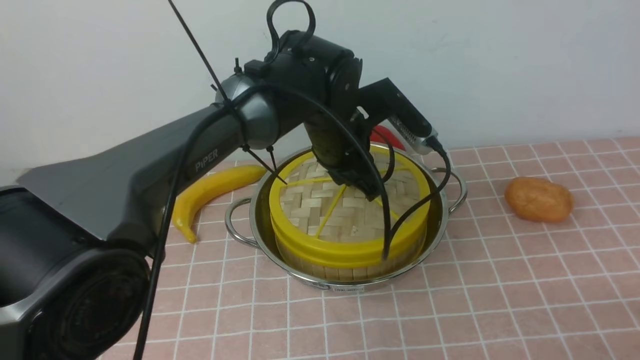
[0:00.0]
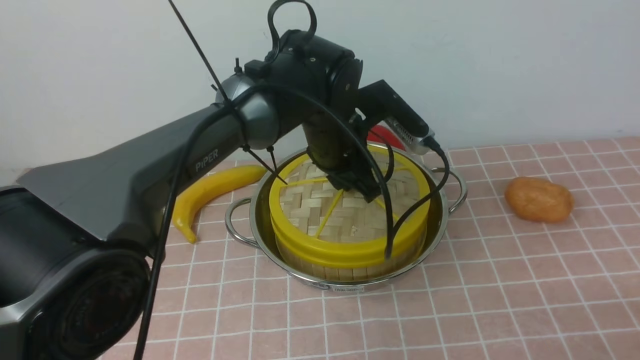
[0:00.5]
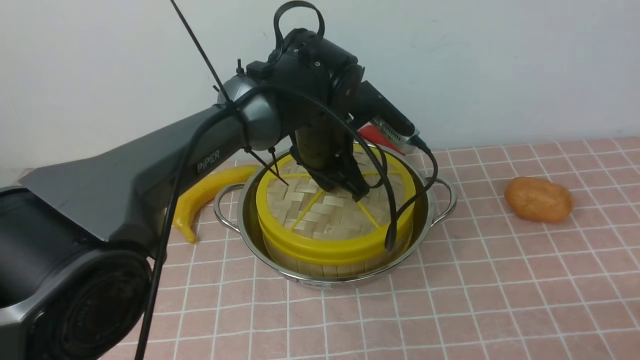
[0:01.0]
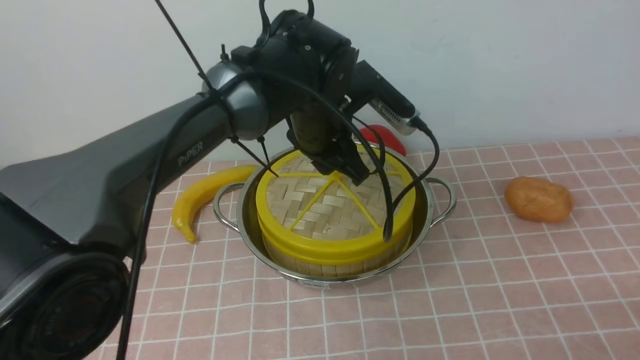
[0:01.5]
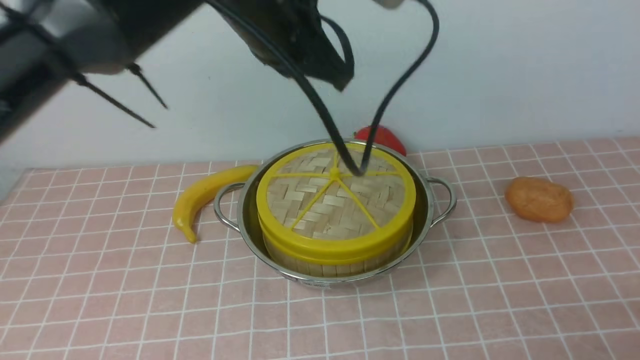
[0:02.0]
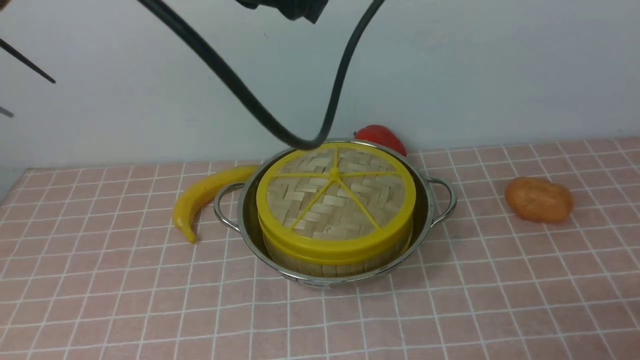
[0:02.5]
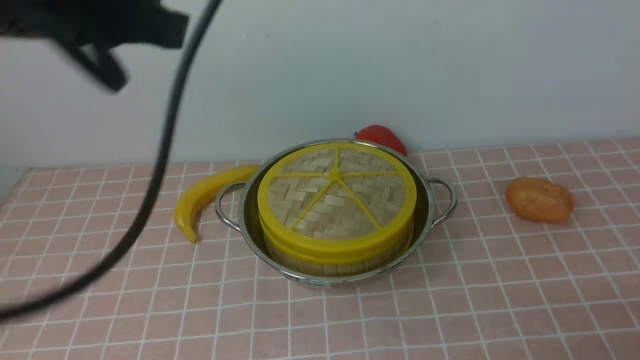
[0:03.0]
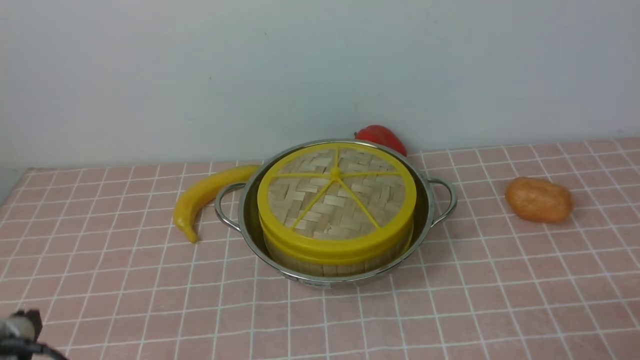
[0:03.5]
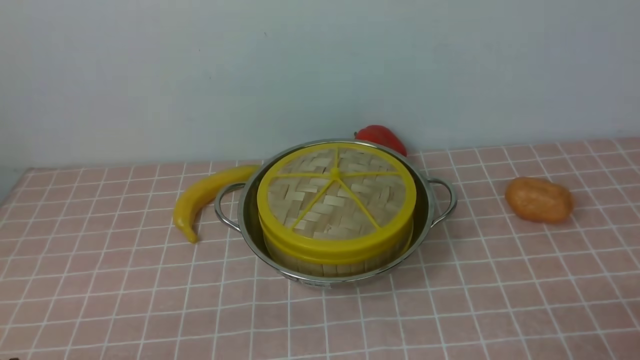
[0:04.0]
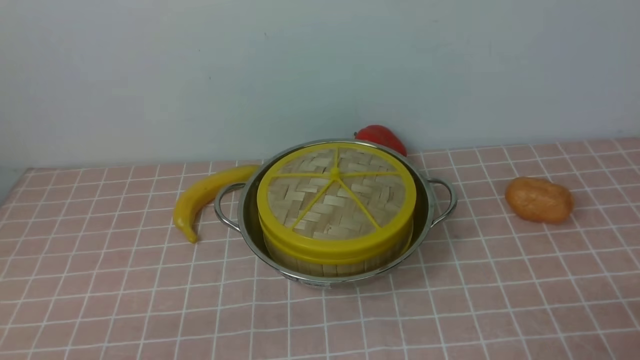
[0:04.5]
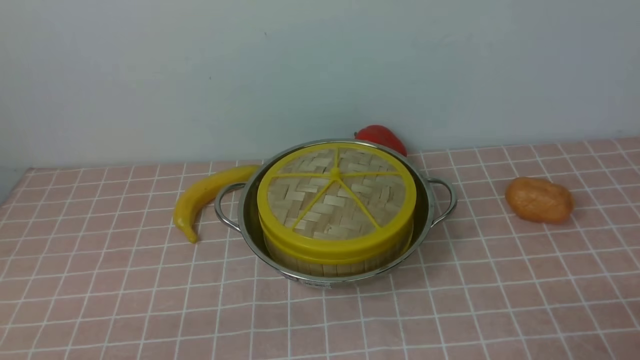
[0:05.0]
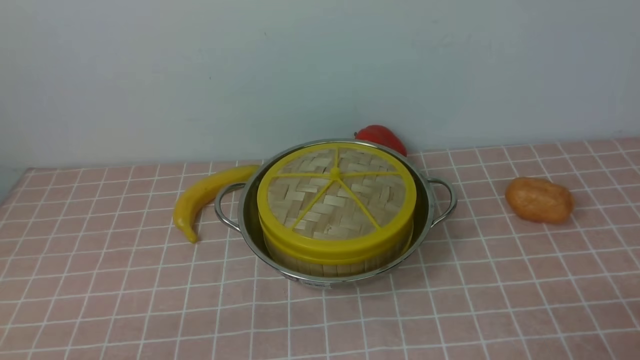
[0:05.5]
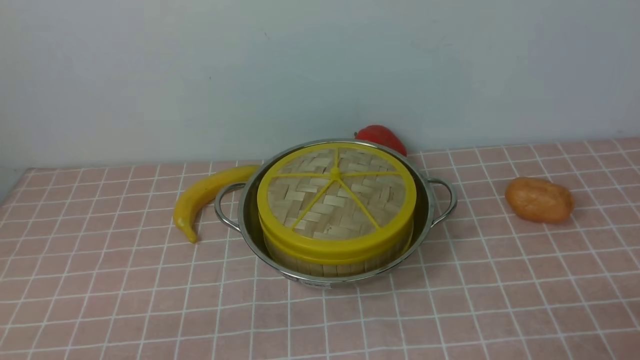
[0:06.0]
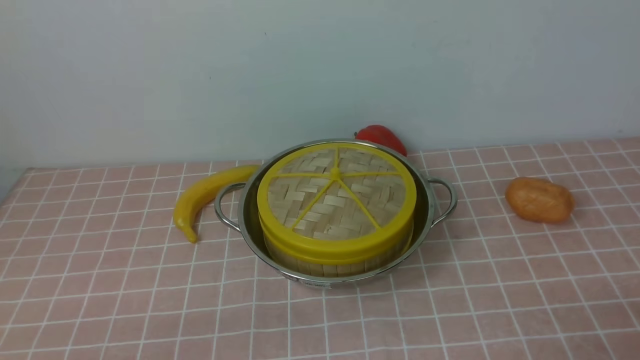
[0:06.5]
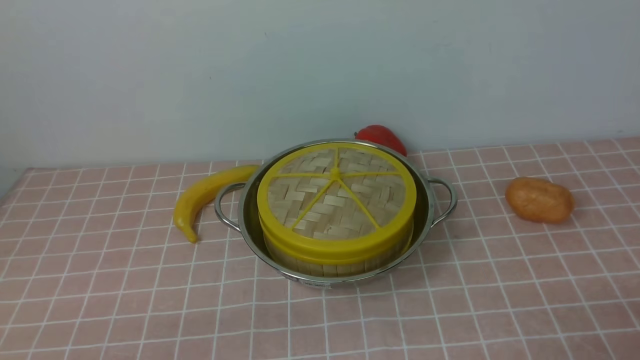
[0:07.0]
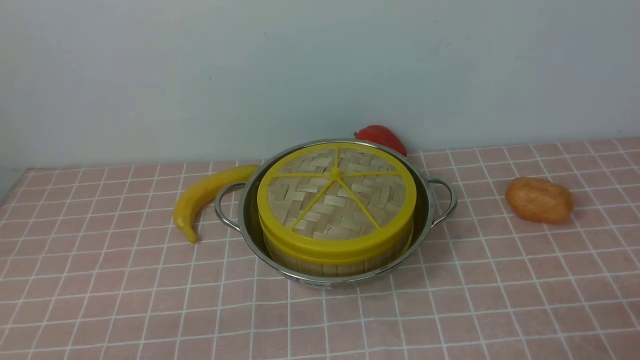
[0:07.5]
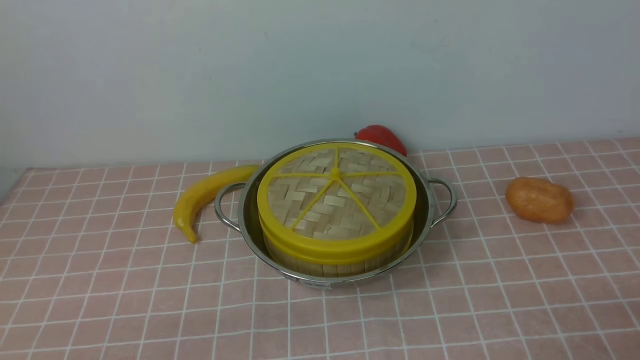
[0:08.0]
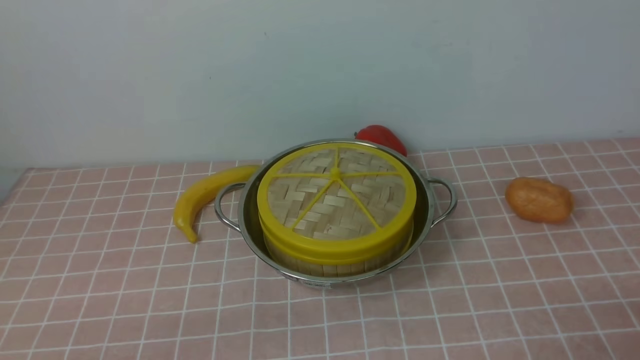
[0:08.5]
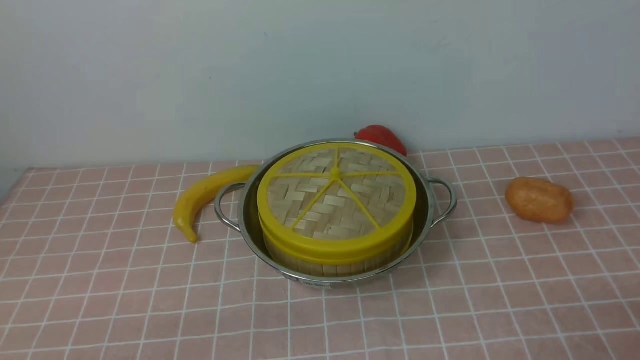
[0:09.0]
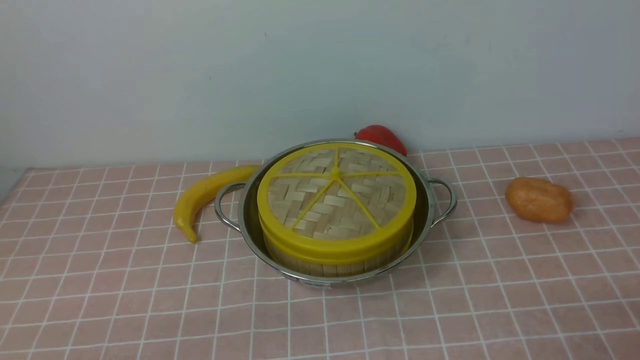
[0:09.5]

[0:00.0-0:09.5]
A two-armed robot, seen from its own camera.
Task of the whole recording: place the steamer in the pot on the pink tablecloth, and put the lid on the steamer.
0:00.0 to 0:02.0: The left gripper heads upward, covering roughly 15 cm.
0:02.0 to 0:04.0: The left gripper travels backward, to the left and downward by approximately 40 cm.
0:04.0 to 0:09.5: Both grippers stay about where they are.
